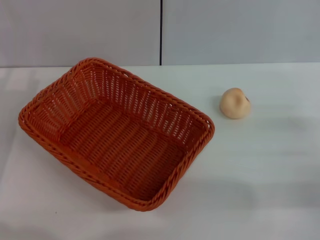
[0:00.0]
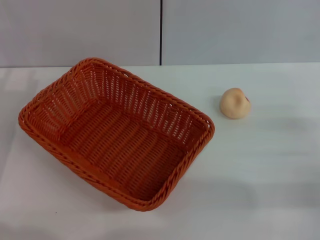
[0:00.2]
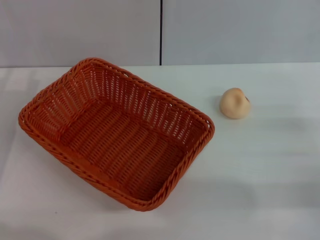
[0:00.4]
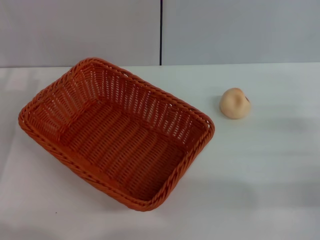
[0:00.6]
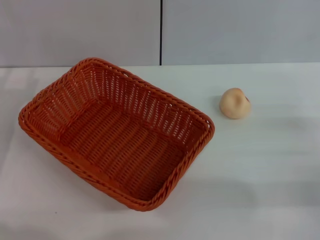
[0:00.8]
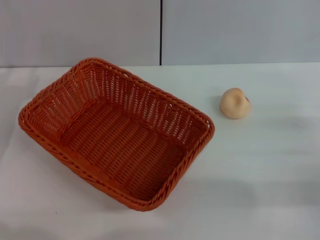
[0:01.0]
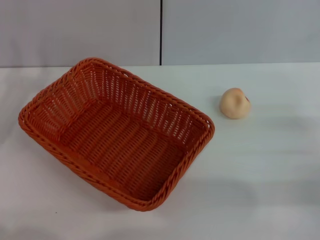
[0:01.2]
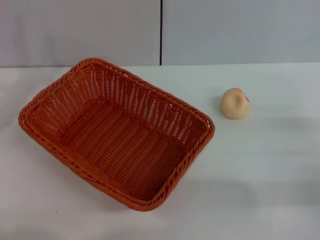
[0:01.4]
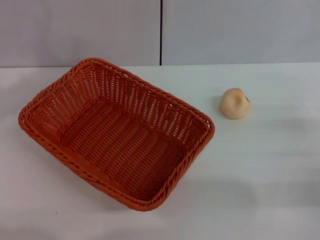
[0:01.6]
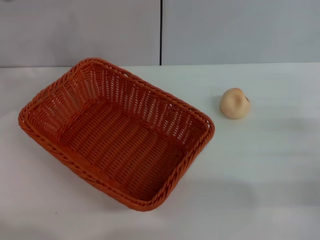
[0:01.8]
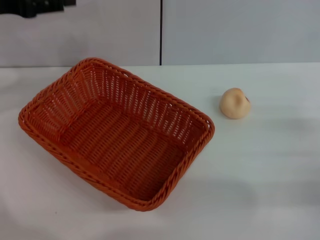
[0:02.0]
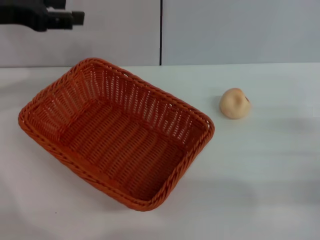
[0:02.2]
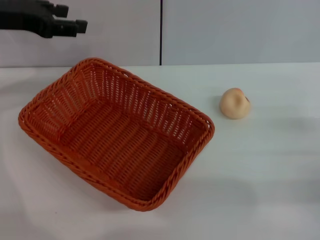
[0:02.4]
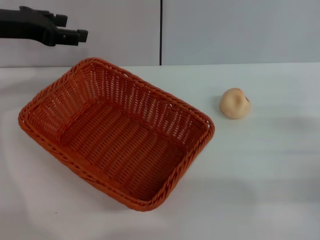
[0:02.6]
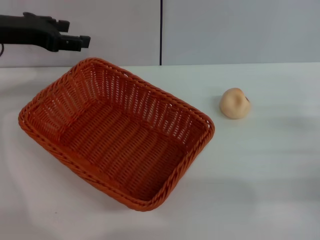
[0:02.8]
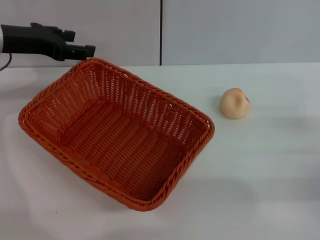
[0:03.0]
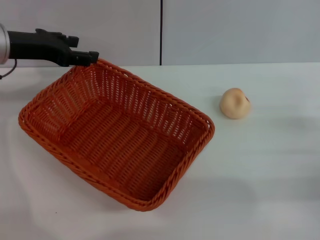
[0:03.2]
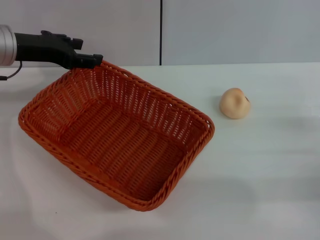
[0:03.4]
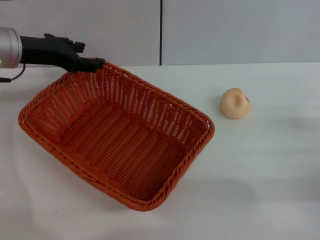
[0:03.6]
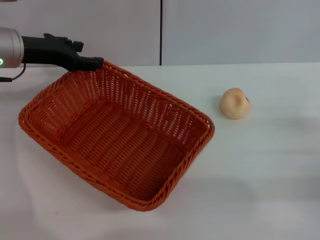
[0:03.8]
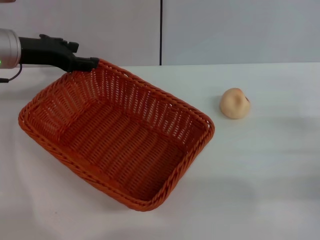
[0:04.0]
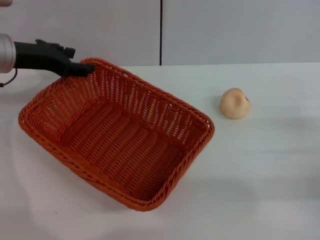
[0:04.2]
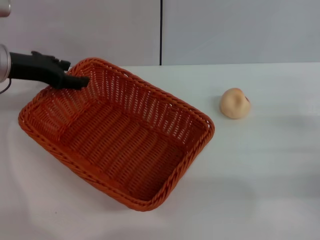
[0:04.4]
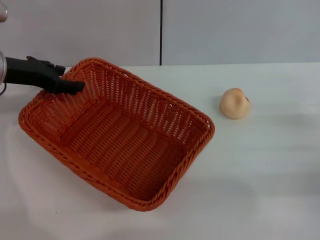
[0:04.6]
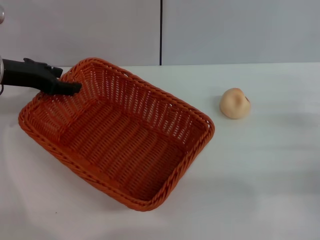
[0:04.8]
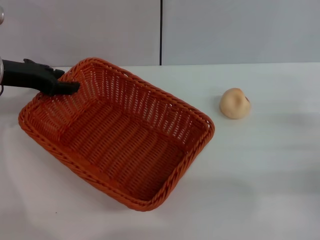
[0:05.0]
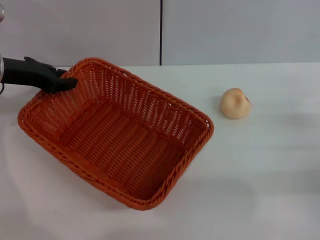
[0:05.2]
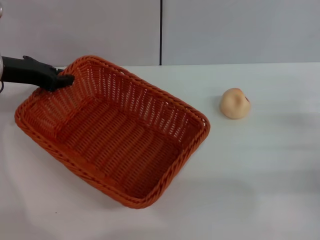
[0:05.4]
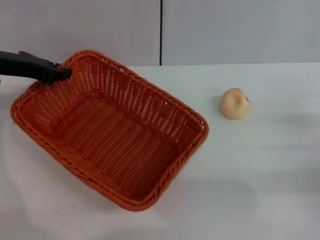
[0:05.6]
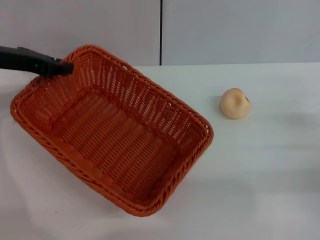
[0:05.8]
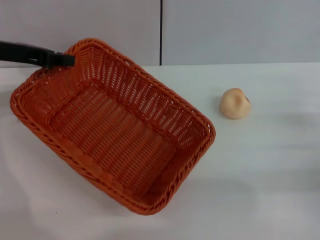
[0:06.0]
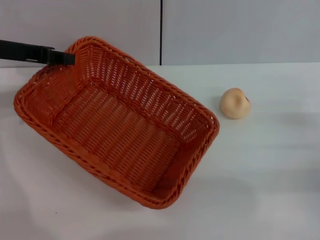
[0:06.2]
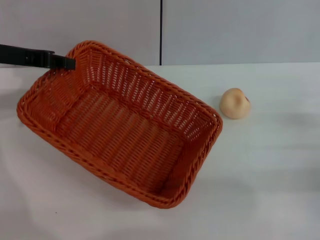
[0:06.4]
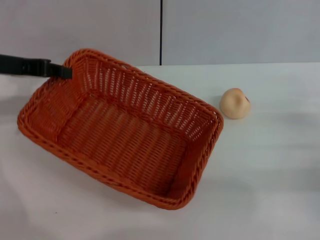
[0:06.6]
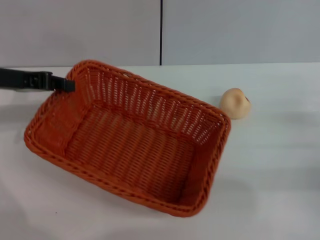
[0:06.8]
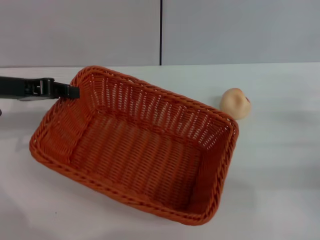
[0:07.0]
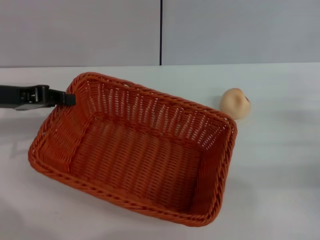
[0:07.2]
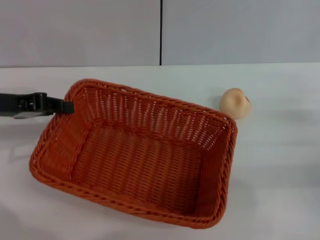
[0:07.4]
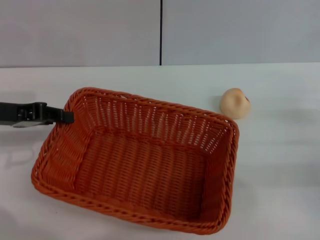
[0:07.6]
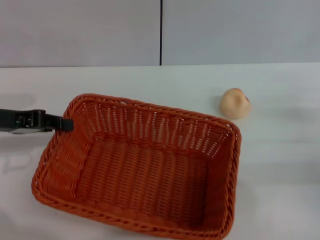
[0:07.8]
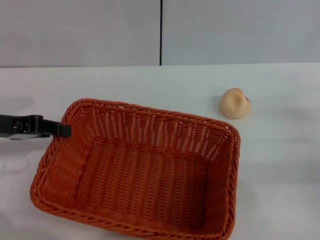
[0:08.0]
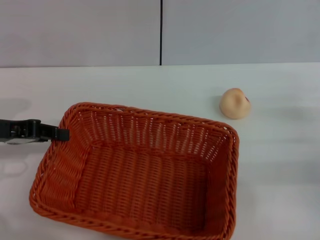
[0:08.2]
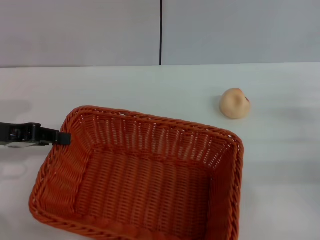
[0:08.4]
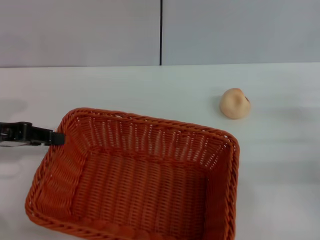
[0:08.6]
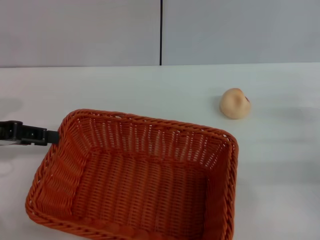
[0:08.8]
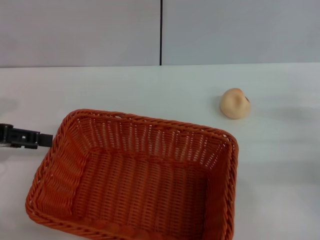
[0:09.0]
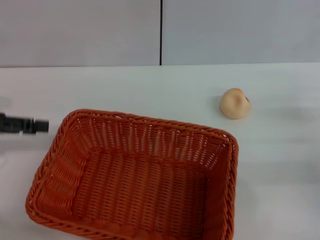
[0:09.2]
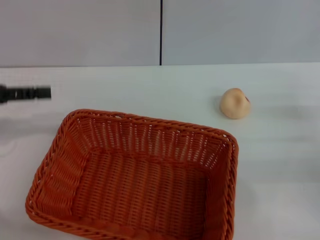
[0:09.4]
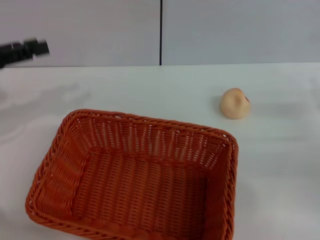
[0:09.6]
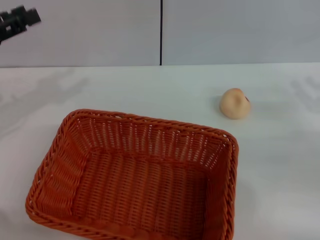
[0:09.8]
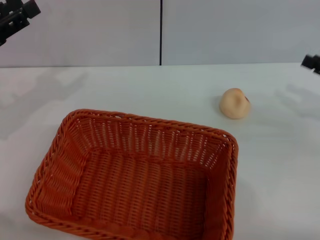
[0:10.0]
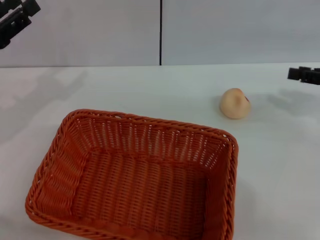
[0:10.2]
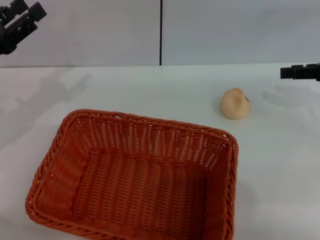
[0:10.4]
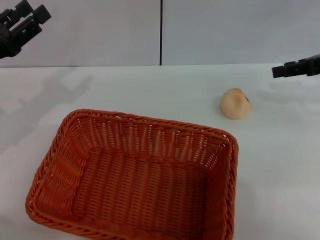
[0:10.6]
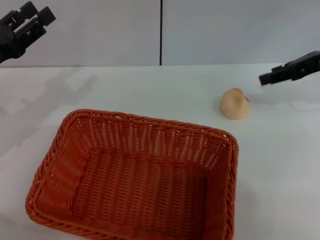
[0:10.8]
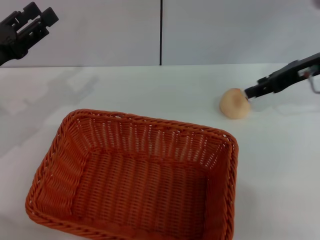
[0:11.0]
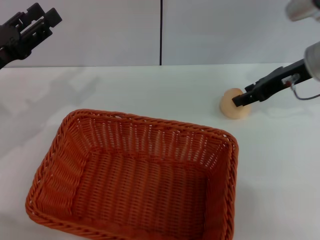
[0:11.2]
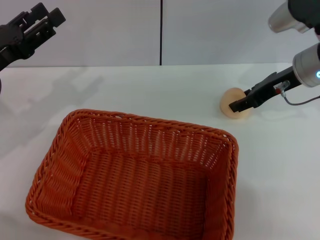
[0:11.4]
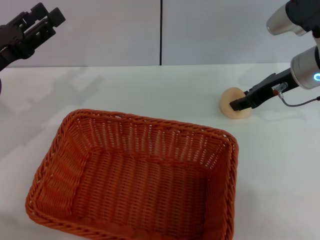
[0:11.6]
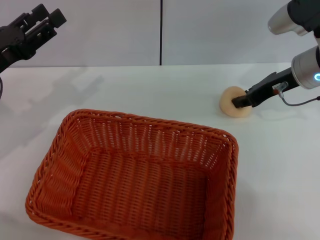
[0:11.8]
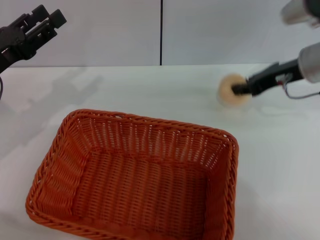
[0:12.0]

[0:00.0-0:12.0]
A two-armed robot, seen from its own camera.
Step, 0:00.0 to 0:09.2: Move the basket to the center of view with the left gripper.
0:01.6 to 0:03.0: The left gripper is displaced to the right by approximately 5 cm.
0:03.0 to 0:04.4: The grippers make only small movements.
0:04.4 to 0:06.0: The left gripper closes its fingers.
0:06.0 to 0:07.6: The left gripper heads backward, covering some 5 cm.
0:07.6 to 0:09.0: The left gripper opens.
0:09.0 to 0:10.4: The right gripper heads upward and forward, covering some 15 cm. The left gripper opens.
0:10.4 to 0:12.0: The right gripper heads to the left, covering some 10 cm, and closes.

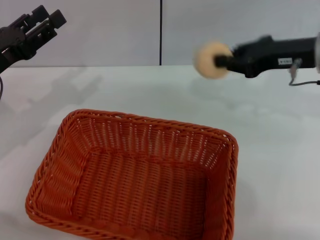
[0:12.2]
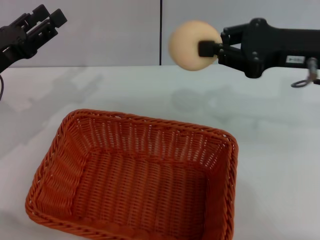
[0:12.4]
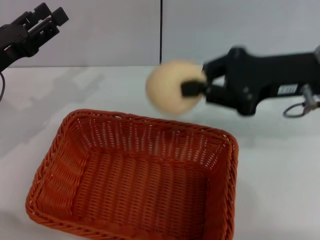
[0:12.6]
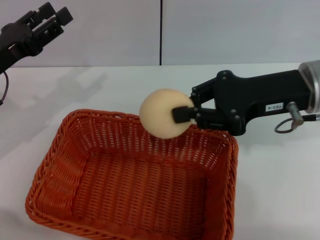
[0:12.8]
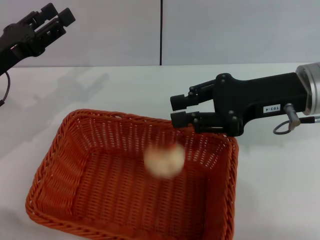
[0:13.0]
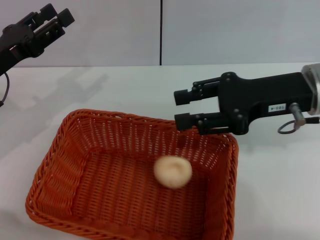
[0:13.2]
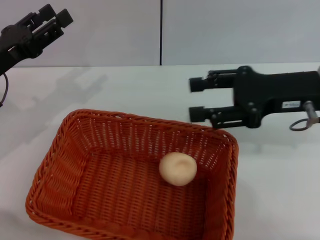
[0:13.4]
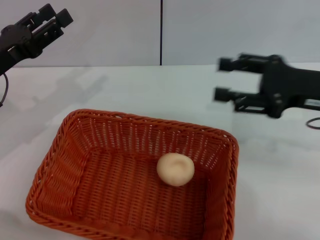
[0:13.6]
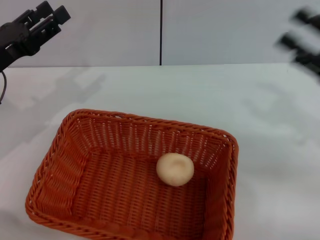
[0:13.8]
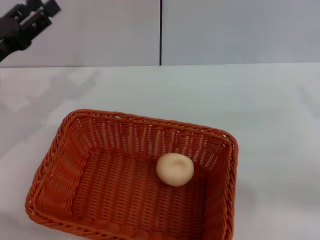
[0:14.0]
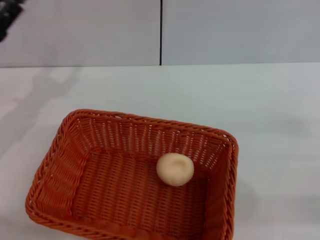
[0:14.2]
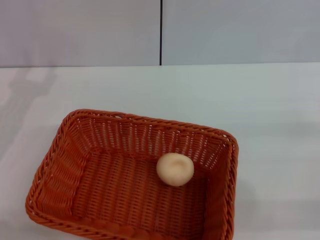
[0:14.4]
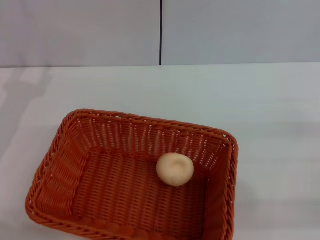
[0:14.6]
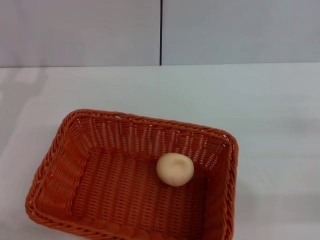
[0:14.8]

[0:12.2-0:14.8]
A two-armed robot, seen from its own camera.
Step, 0:12.2 to 0:13.2: Place the egg yolk pastry into the basket with the right gripper.
0:12.2 to 0:13.4: The right gripper opens up.
0:13.4 to 0:14.8: The right gripper travels to the right, backward and downward by about 20 cm, and opens its fingers.
